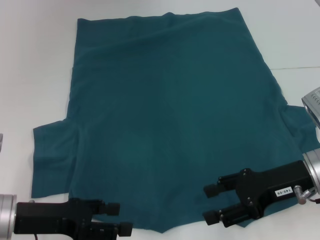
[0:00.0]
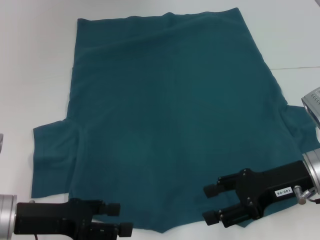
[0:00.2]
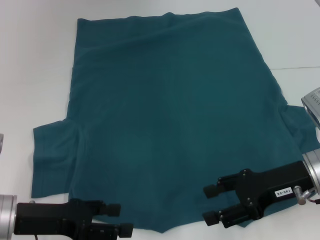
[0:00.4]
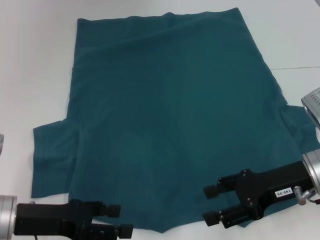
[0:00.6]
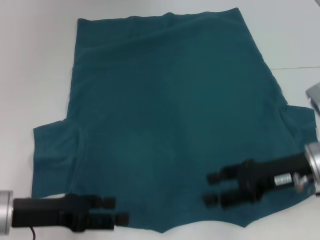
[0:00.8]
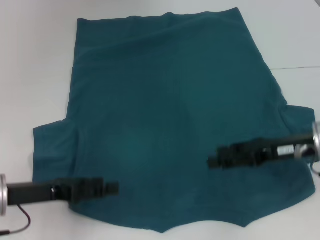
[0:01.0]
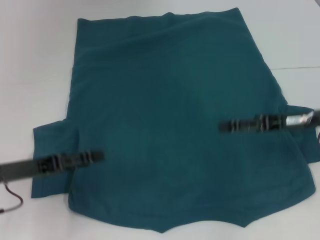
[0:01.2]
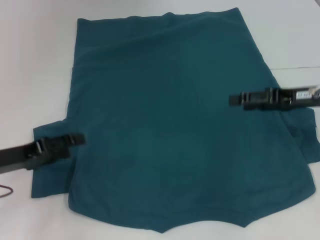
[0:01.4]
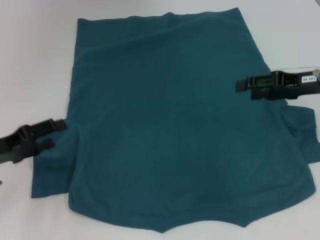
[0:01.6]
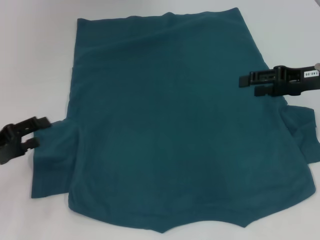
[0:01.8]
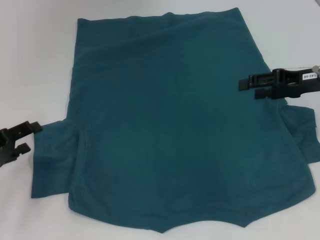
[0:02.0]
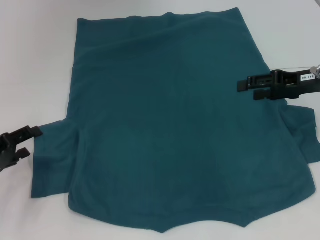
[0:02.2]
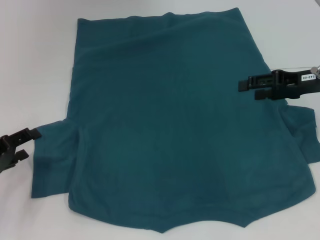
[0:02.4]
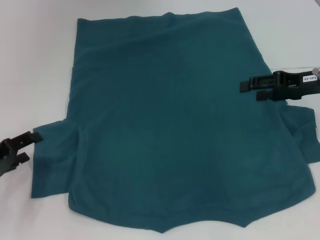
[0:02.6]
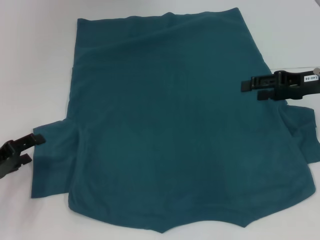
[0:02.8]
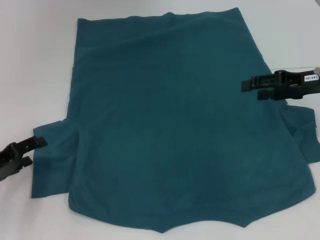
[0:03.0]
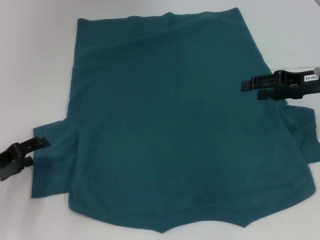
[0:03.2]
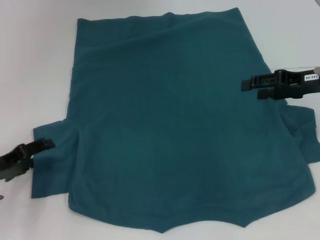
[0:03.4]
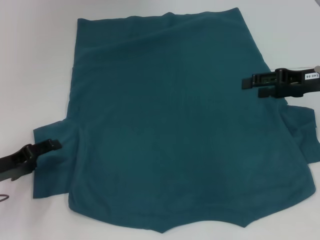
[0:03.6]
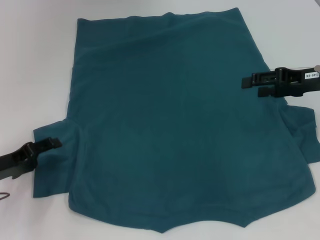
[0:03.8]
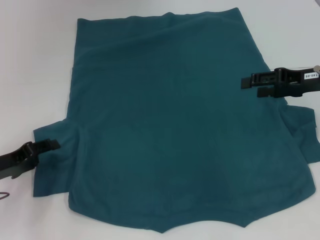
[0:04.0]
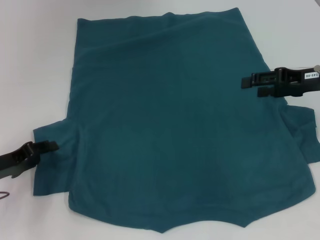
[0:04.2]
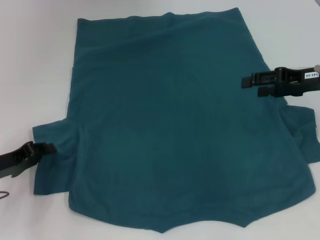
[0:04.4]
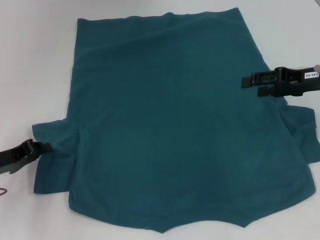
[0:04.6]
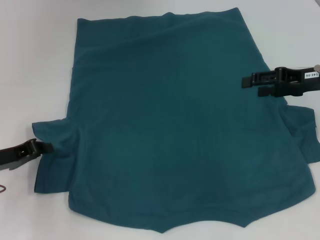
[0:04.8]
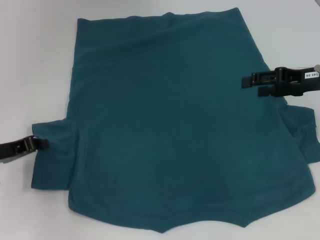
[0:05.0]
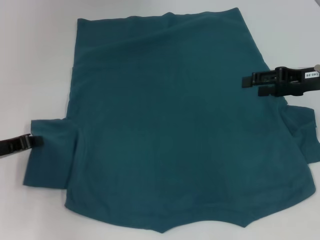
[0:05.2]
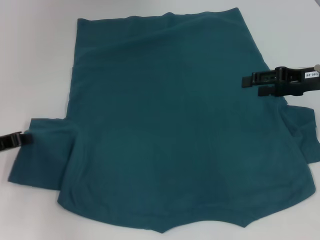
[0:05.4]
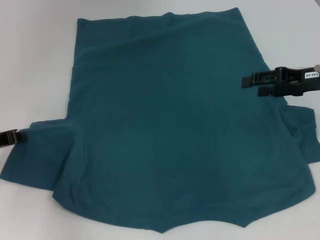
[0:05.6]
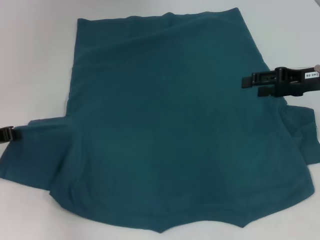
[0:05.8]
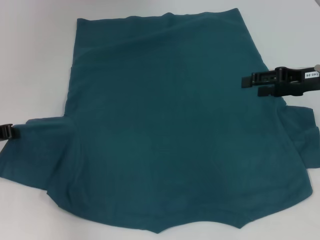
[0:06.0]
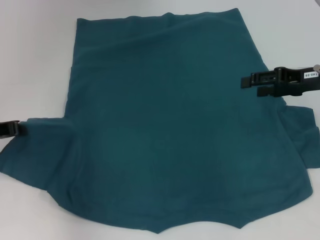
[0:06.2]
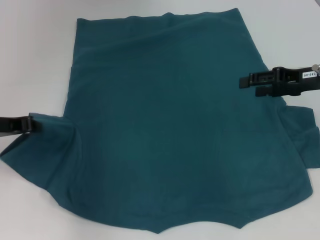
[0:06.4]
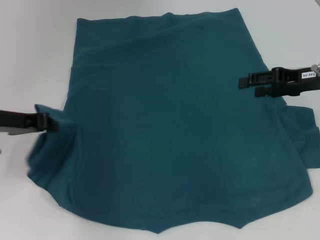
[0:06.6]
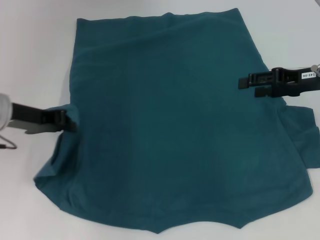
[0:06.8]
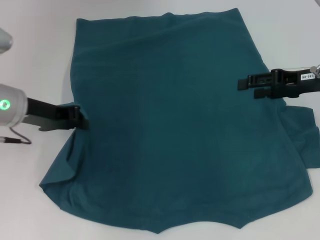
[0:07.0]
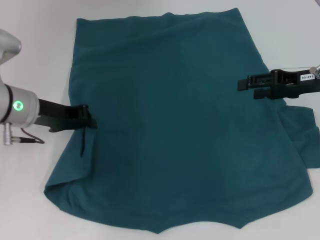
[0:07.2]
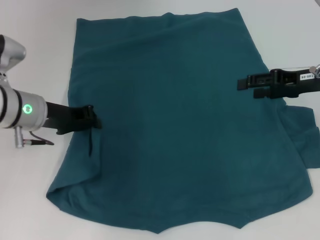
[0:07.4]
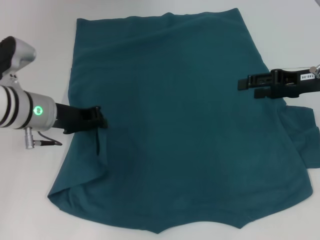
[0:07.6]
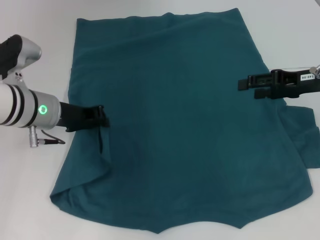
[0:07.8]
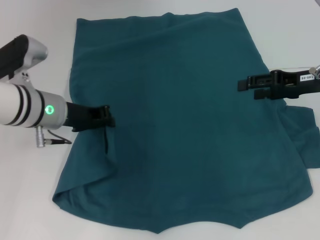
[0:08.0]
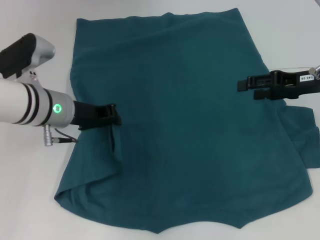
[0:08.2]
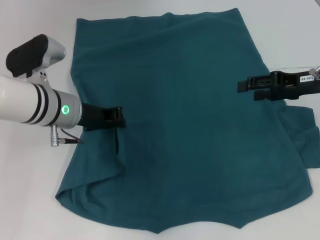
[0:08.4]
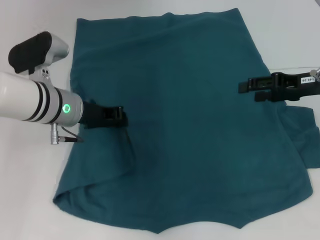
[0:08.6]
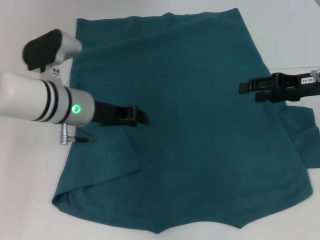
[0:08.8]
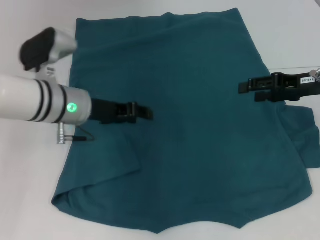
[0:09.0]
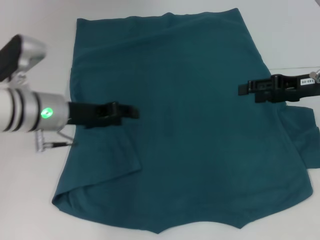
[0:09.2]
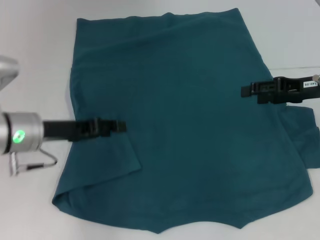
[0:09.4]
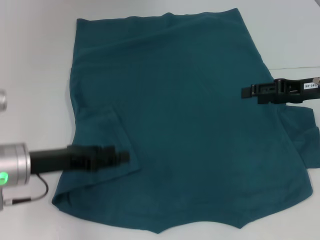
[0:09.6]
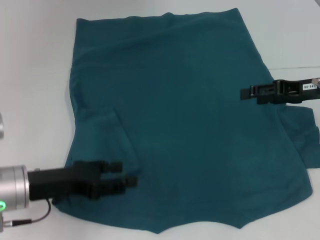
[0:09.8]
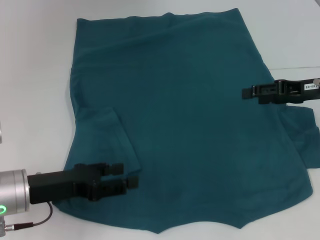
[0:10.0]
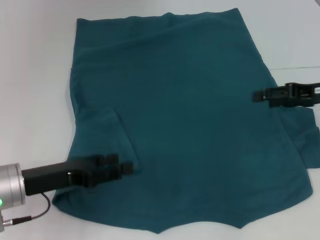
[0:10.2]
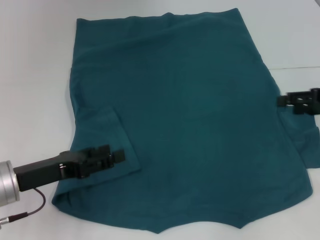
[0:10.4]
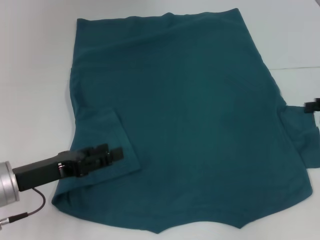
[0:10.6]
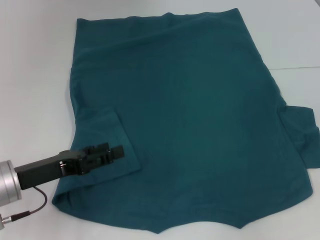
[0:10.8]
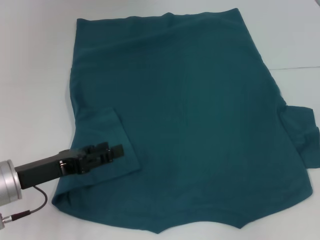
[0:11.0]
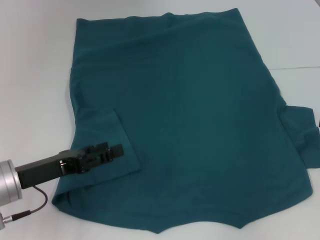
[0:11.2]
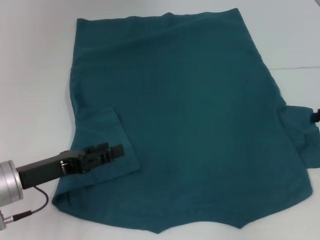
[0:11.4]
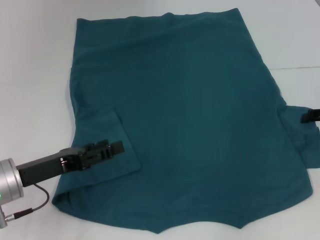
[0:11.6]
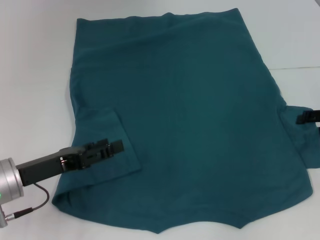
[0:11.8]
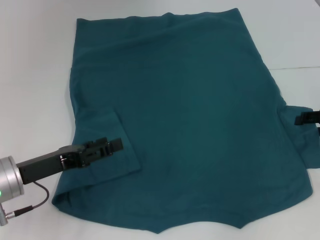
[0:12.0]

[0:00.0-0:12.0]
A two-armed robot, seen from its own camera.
Step, 0:00.0 to 0:09.6: Fold the bottom left sleeve with your left hand.
0:00.0 to 0:01.6: The right gripper is displaced forward, to the right and upward by some 10 cm. Meanwhile the left gripper shifts about 5 cm to the left.
0:01.6 to 0:03.0: The grippers make only small movements.
0:03.0 to 0:04.4: The left gripper closes its fingers.
0:04.4 to 0:06.0: The left gripper heads upward, covering roughly 5 cm, and closes its fingers.
0:06.0 to 0:07.6: The left gripper travels to the right by roughly 15 cm.
0:07.6 to 0:09.0: The left gripper goes some 5 cm to the right, and opens its fingers.
0:09.0 to 0:10.4: The left gripper heads backward, to the left and downward, covering approximately 15 cm, and opens its fingers, while the right gripper moves to the right, roughly 5 cm.
0:10.4 to 0:12.0: The right gripper ends up approximately 5 cm from where it was.

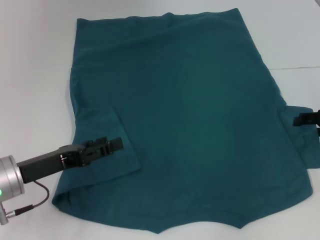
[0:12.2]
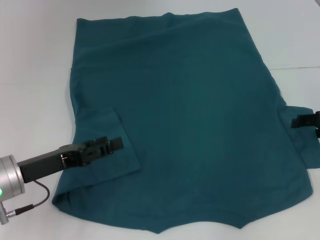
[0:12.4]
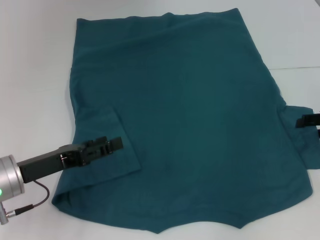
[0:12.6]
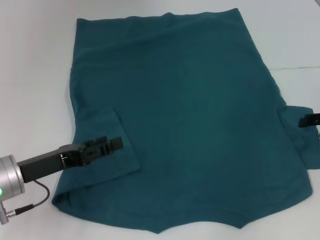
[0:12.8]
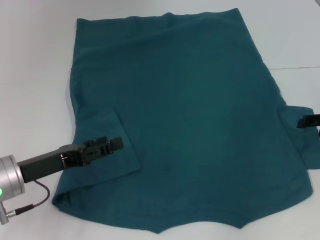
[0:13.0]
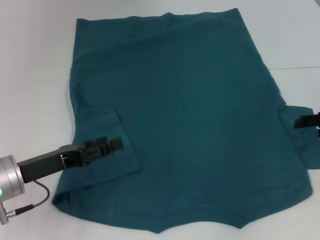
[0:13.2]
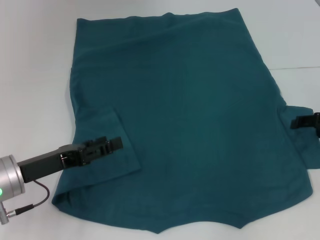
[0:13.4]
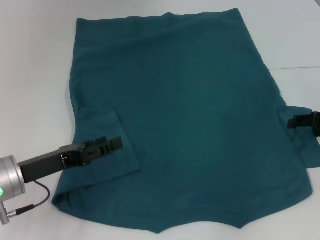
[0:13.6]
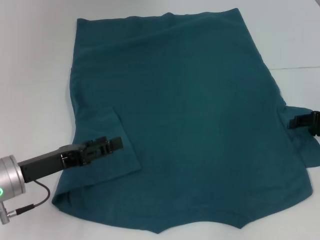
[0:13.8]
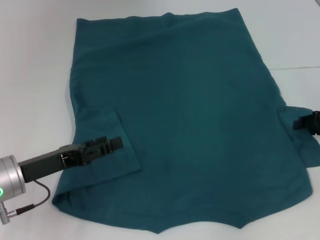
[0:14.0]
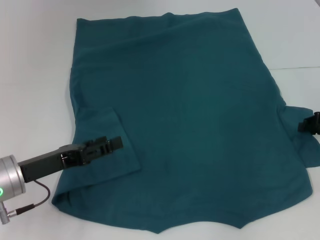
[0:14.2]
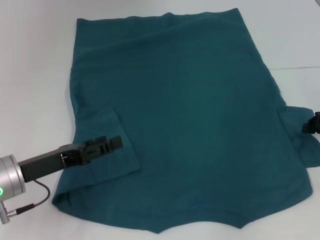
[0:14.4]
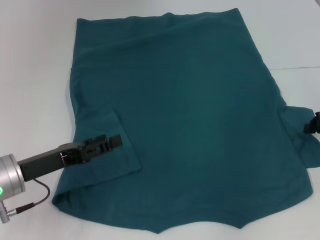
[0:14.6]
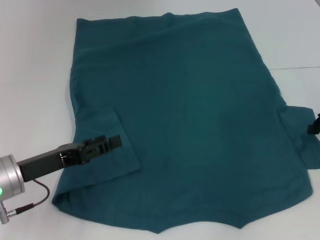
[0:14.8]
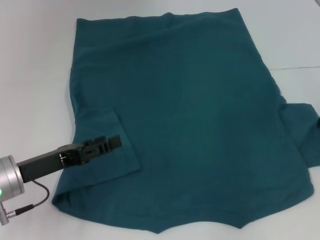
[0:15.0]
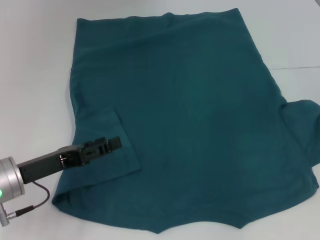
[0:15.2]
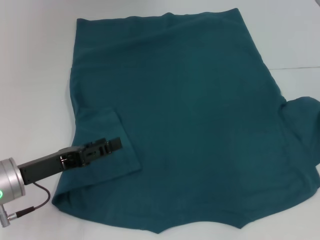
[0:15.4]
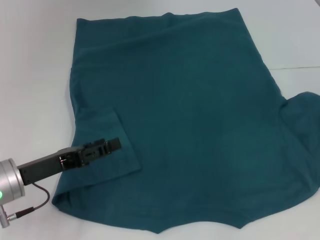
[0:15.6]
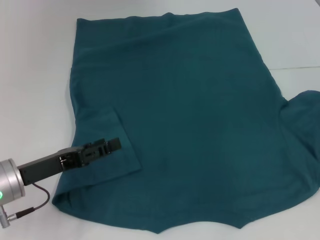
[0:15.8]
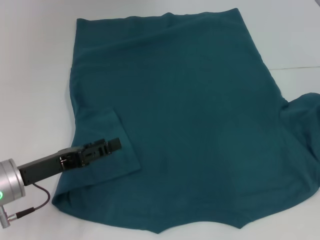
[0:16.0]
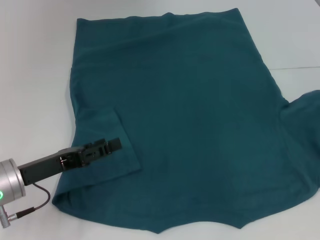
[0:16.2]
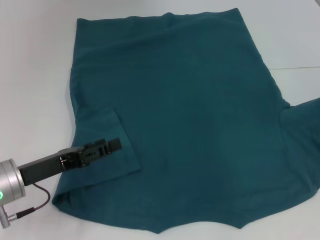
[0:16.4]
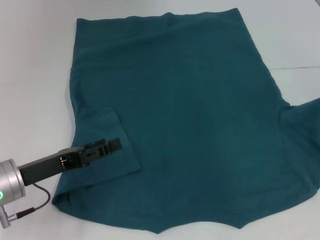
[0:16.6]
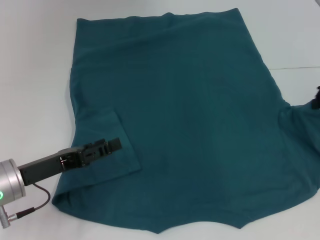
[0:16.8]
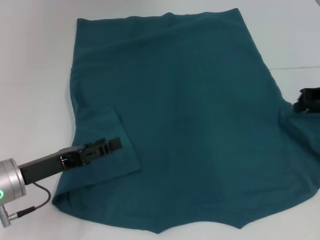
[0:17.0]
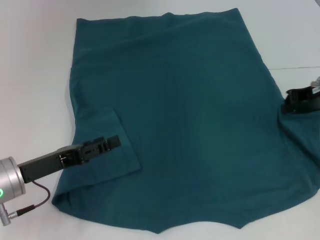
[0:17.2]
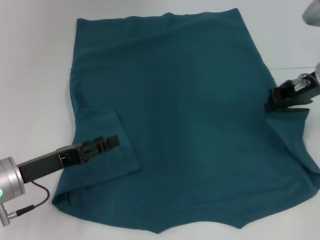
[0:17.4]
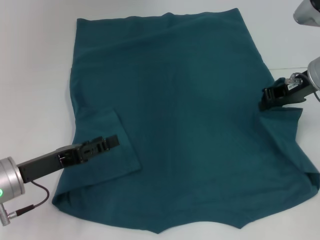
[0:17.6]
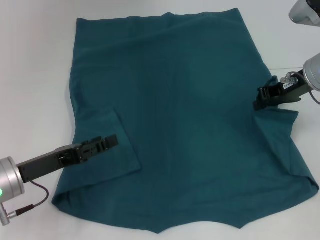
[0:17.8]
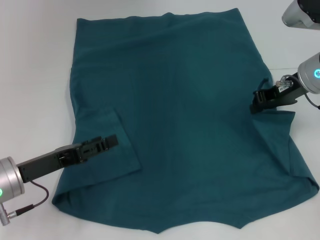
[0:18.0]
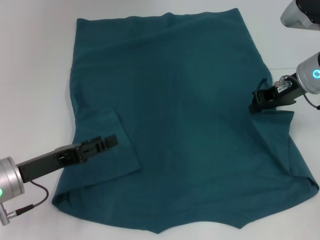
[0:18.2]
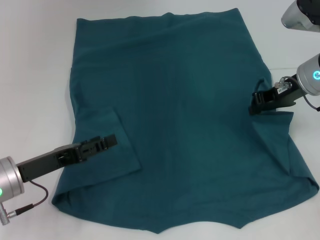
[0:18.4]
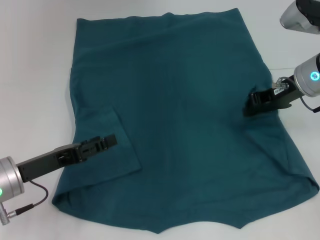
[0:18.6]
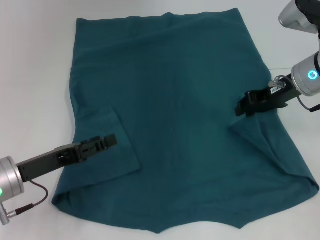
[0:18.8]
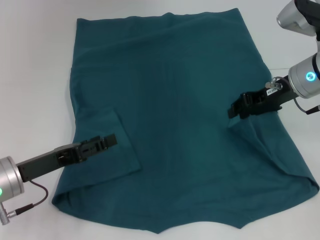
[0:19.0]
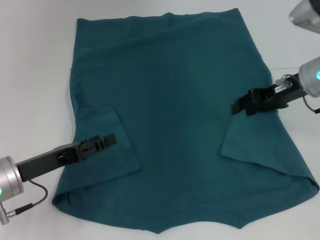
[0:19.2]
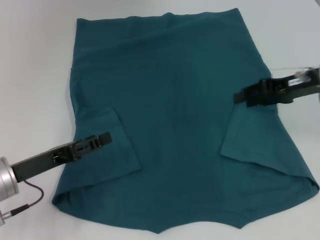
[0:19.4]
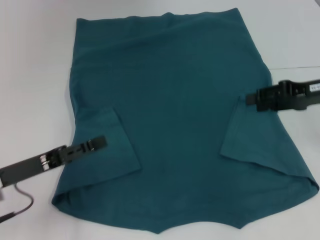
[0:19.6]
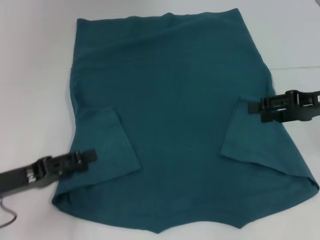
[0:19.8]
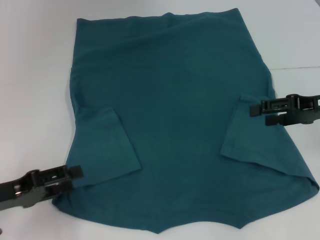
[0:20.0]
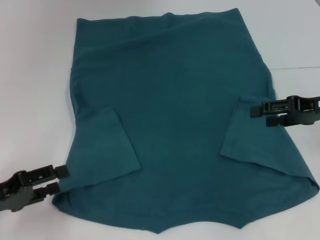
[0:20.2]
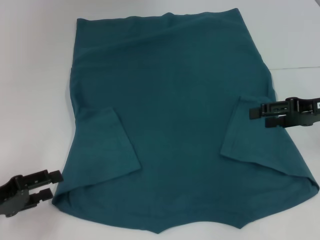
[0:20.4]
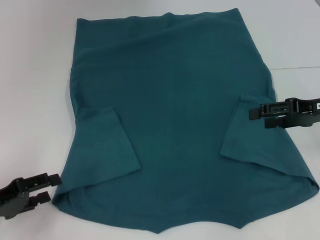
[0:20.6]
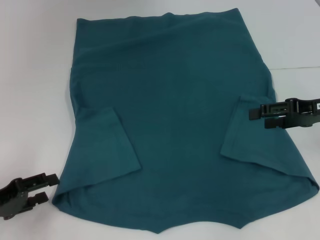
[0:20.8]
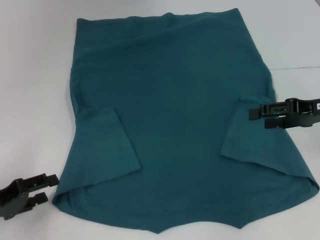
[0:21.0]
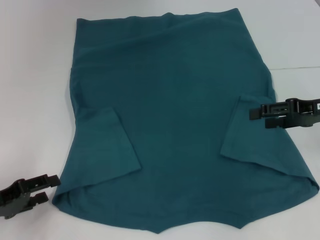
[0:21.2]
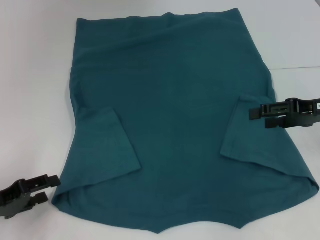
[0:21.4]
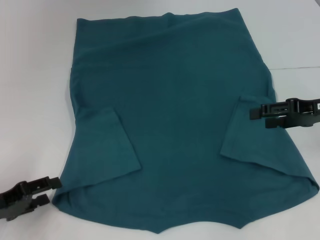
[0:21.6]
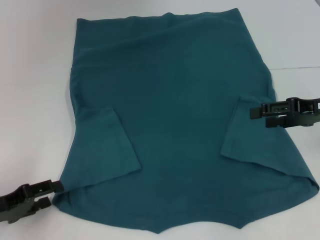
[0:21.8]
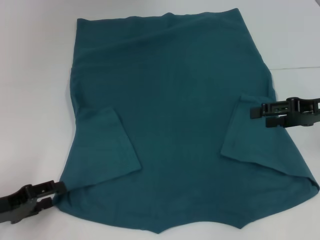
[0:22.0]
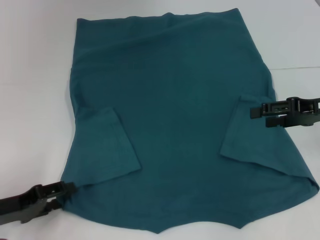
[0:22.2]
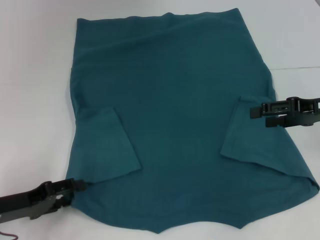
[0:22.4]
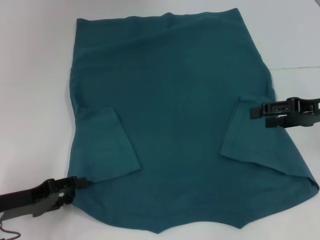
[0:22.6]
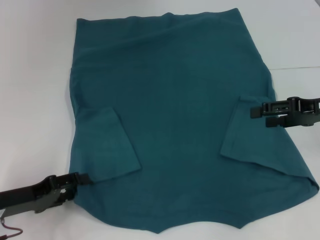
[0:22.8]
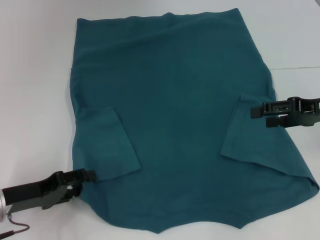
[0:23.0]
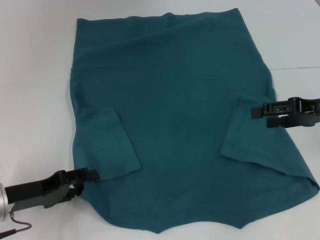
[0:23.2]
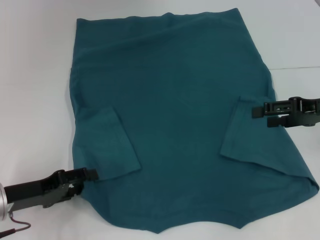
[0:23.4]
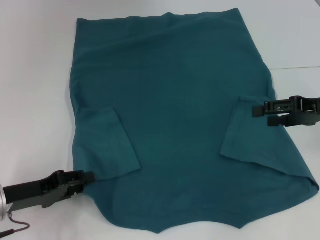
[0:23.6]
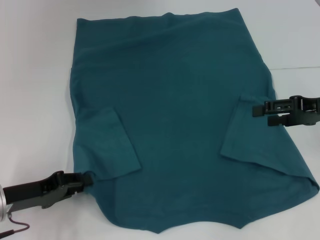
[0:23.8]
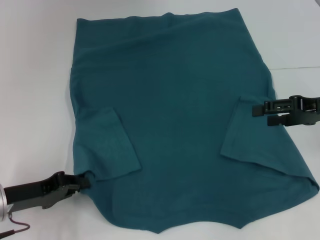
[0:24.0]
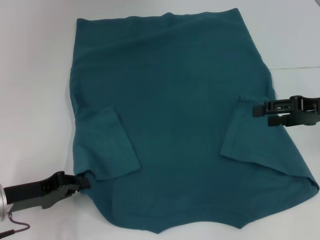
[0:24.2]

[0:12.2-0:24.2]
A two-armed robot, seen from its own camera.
Step, 0:12.2 to 0:20.4: Fold the bottom right sleeve to the right.
0:12.2 to 0:13.8: The two grippers keep their place.
0:13.8 to 0:15.2: The right gripper closes its fingers.
0:15.2 to 0:16.6: The grippers make only small movements.
0:16.6 to 0:18.2: The right gripper moves to the left, some 10 cm.
0:18.2 to 0:19.8: The left gripper ends up approximately 5 cm from where it was. Meanwhile the right gripper shifts approximately 10 cm to the right and backward, and opens.
0:19.8 to 0:21.2: The left gripper ends up roughly 5 cm from where it was.
0:21.2 to 0:22.6: There are only small adjustments of the grippers.
0:22.6 to 0:24.2: The left gripper closes its fingers.
